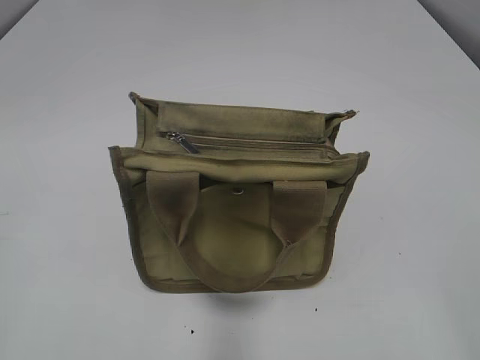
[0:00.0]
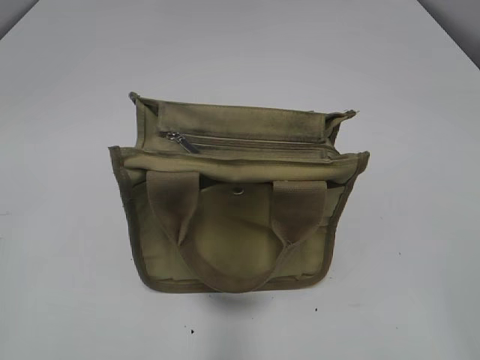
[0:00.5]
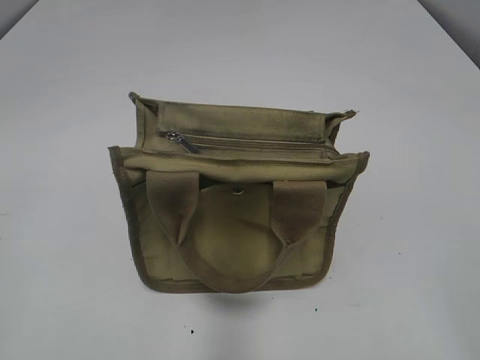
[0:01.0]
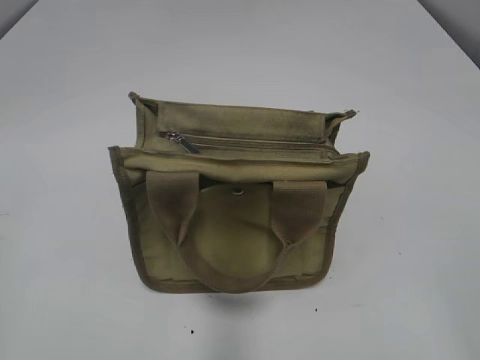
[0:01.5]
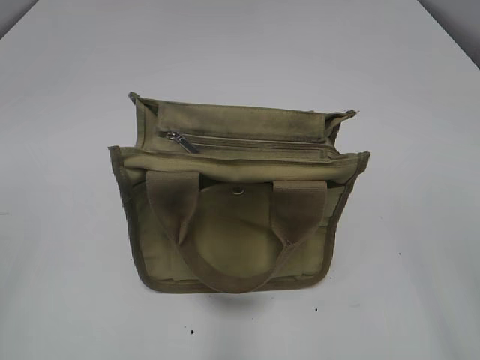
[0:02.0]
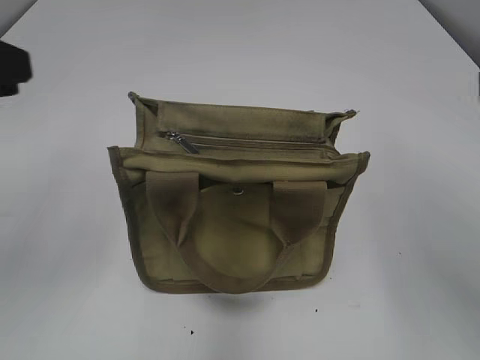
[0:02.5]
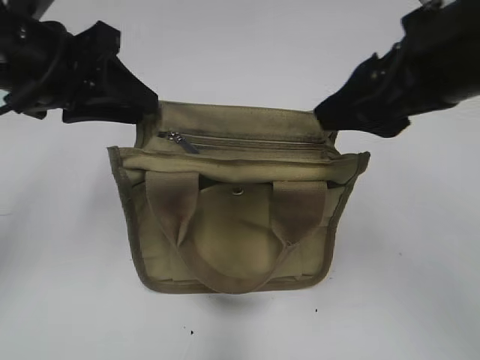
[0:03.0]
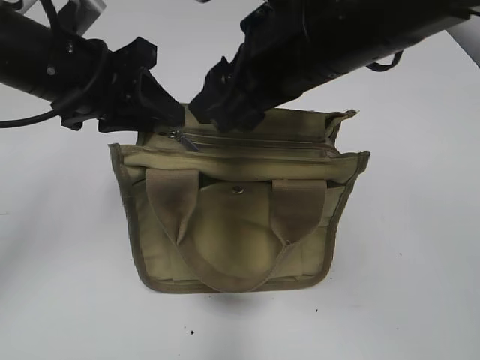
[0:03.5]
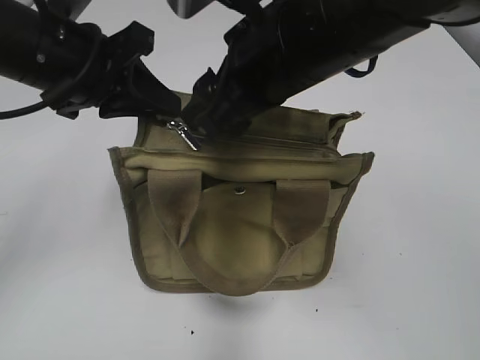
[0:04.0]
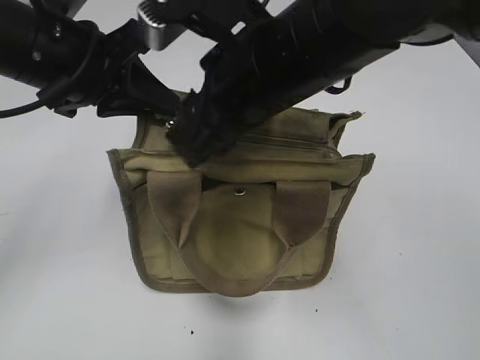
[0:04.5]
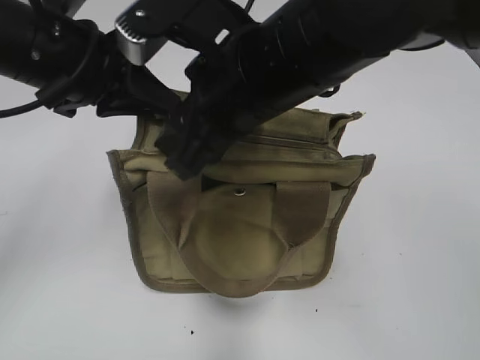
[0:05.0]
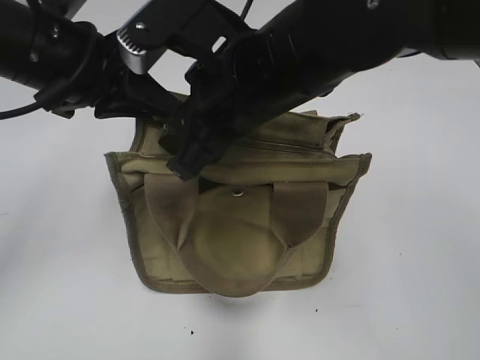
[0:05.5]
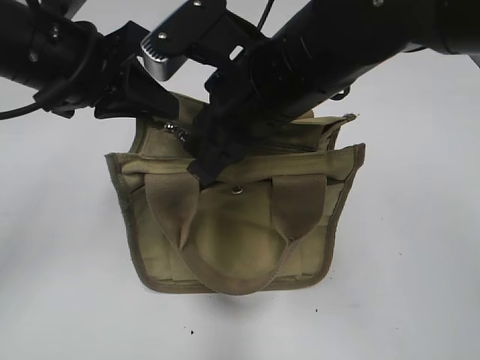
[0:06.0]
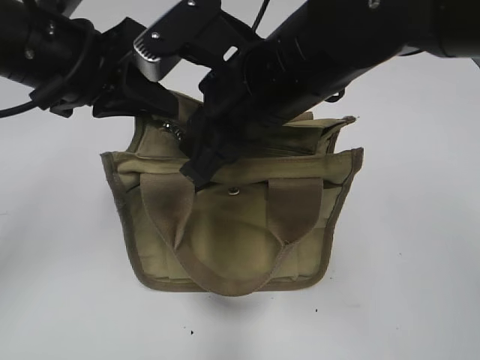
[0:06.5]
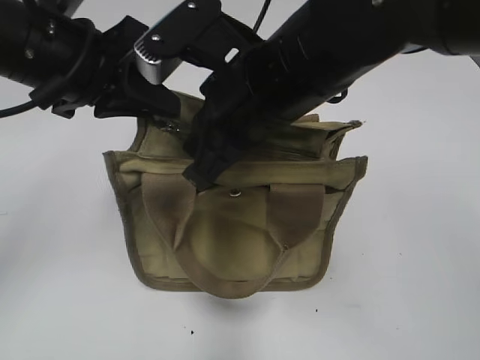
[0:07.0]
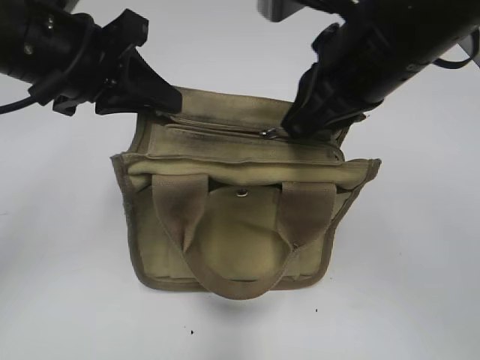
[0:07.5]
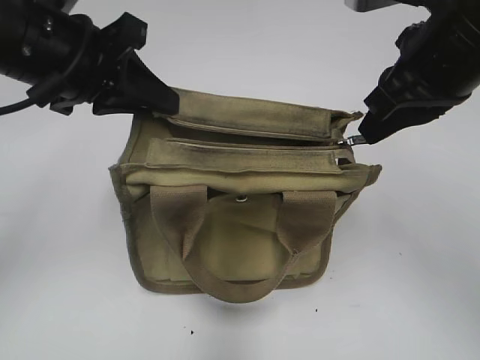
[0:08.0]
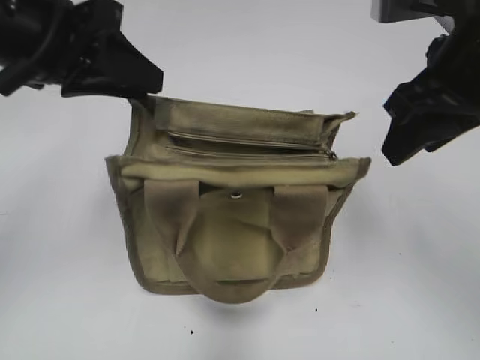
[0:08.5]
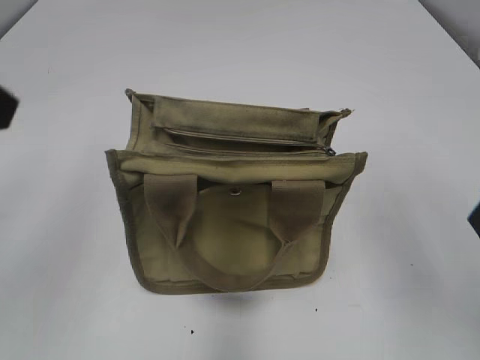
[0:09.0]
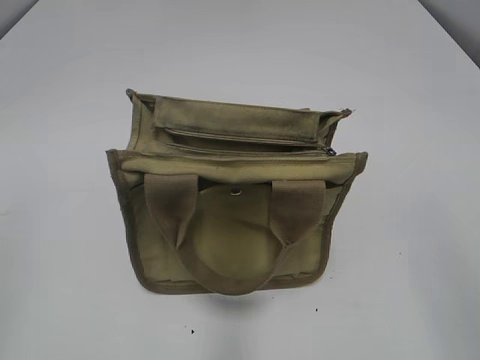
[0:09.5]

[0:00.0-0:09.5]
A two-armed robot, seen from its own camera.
Step, 0.0 to 8.0 s: Pull open the zipper with your right hand.
2.0 to 4.0 s: The right gripper shifts approximately 35 cm forward and to the left. Meanwhile the left gripper heads forward and to the right, covering roughly 30 cm, and closes its fingers.
4.0 to 5.5 s: There are only small adjustments of the grippers.
5.5 to 7.5 s: The right gripper moves to the right, approximately 10 cm, and closes up.
7.5 to 9.5 s: The left gripper heads backward and to the left, covering about 25 cm, and opens. The right gripper is displaced backward and to the right by roughly 25 cm, and opens up.

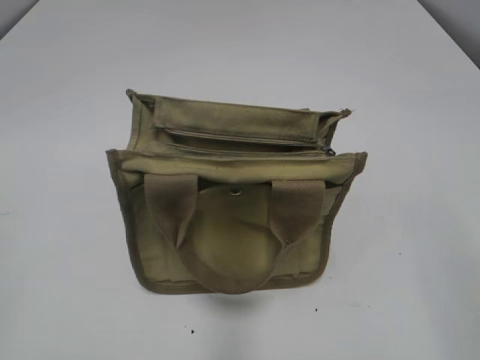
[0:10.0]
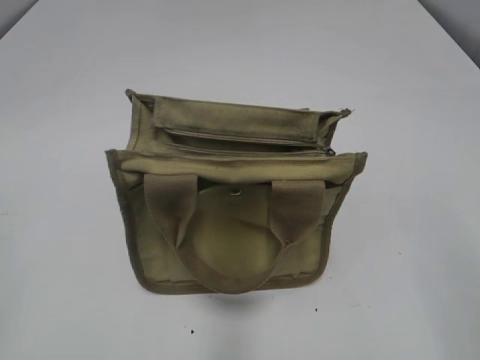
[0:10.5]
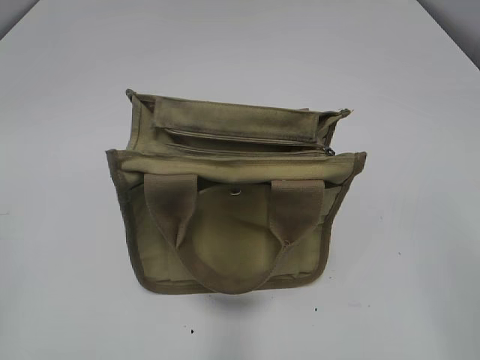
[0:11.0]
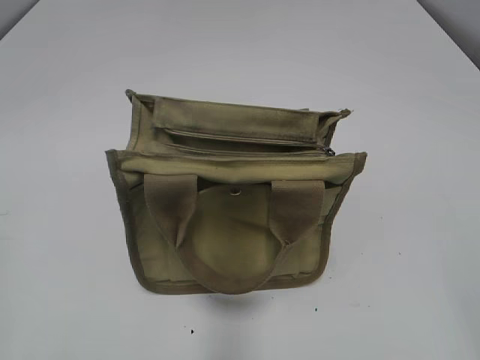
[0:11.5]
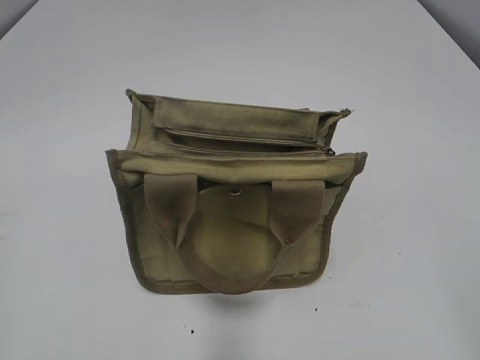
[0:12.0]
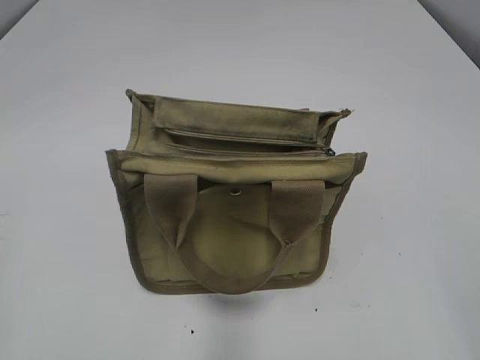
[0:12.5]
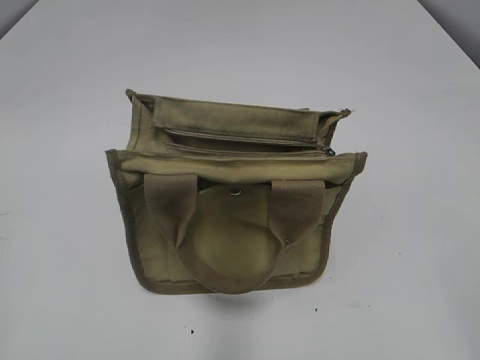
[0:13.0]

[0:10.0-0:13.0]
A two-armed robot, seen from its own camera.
11.5 to 13.0 s: Neither gripper changes place.

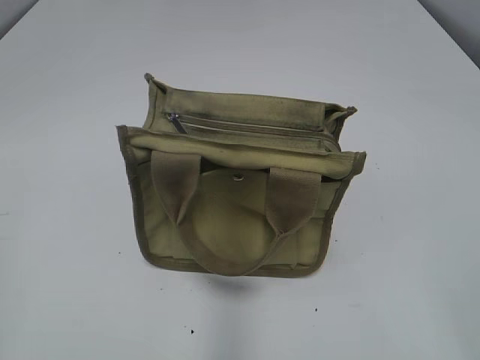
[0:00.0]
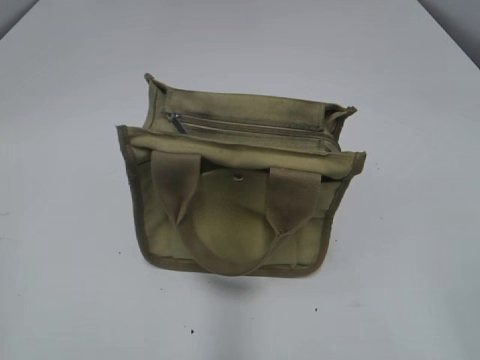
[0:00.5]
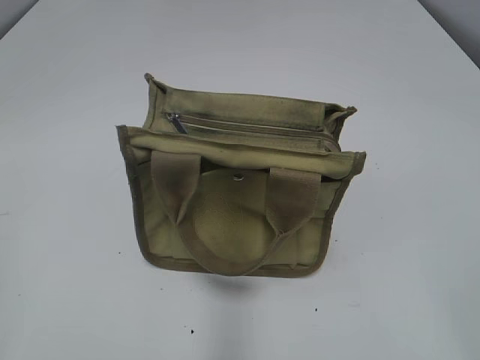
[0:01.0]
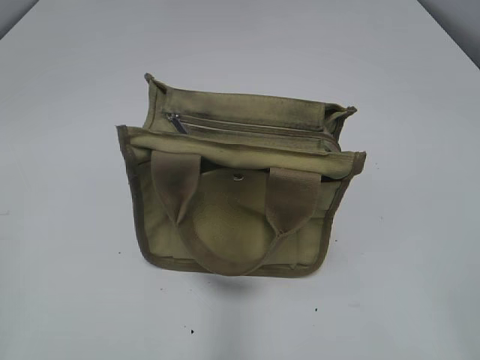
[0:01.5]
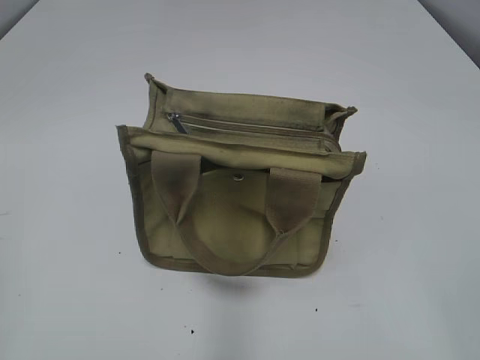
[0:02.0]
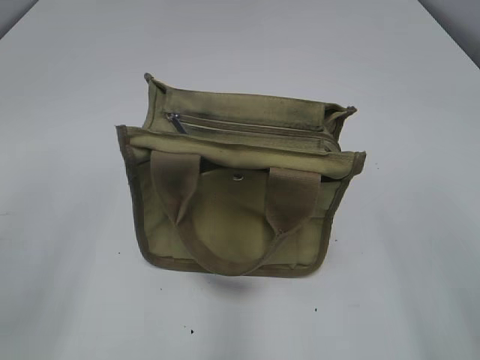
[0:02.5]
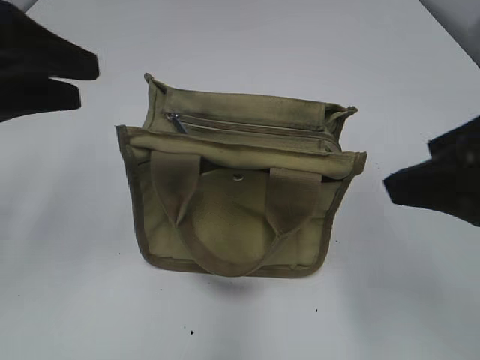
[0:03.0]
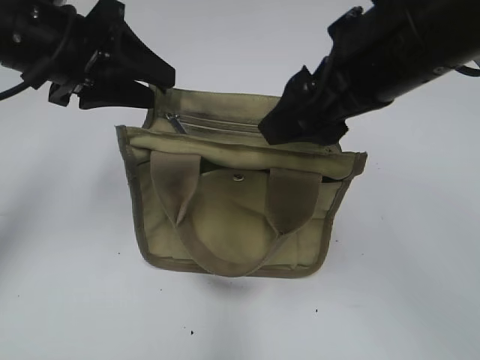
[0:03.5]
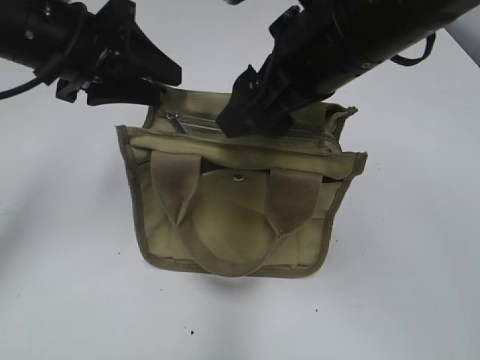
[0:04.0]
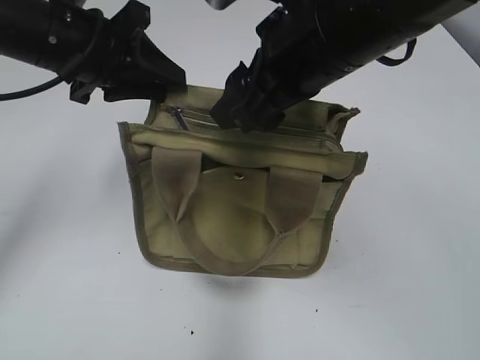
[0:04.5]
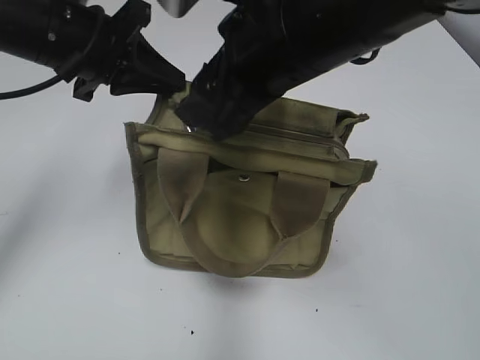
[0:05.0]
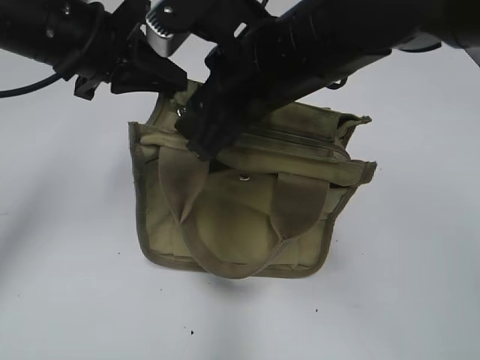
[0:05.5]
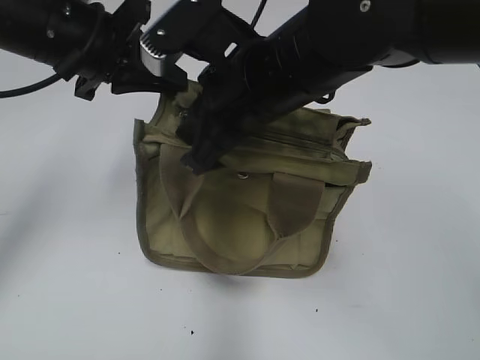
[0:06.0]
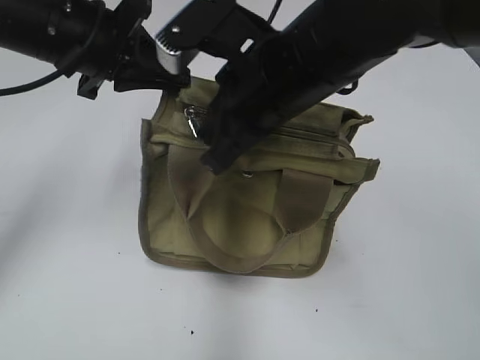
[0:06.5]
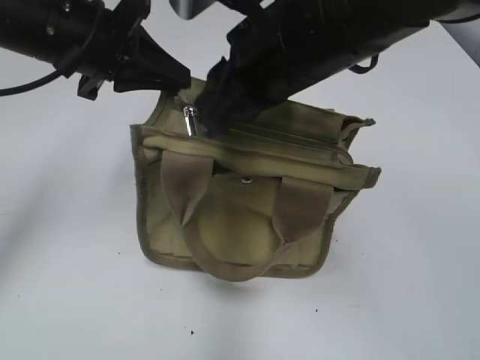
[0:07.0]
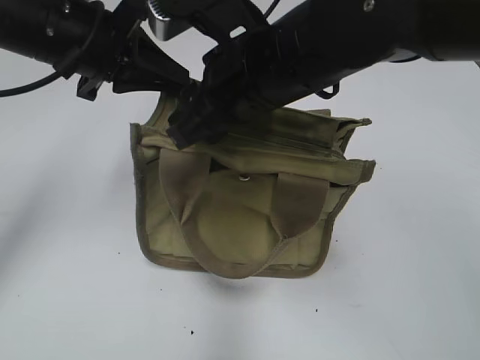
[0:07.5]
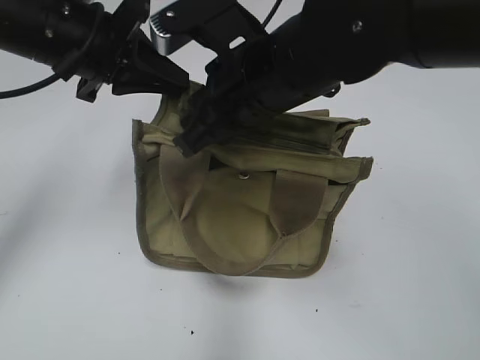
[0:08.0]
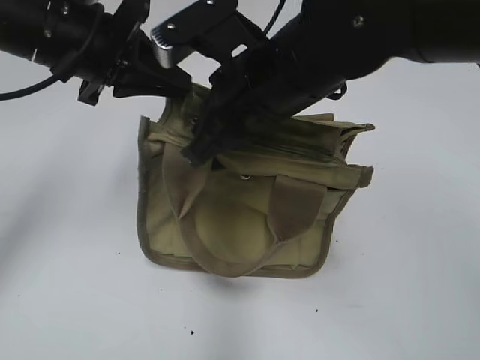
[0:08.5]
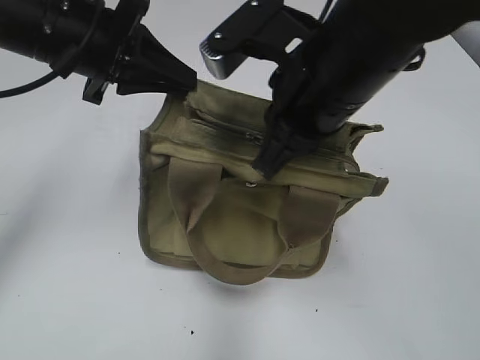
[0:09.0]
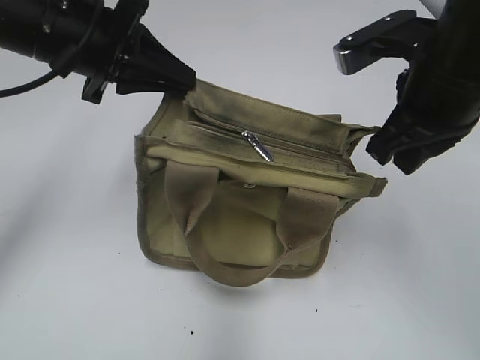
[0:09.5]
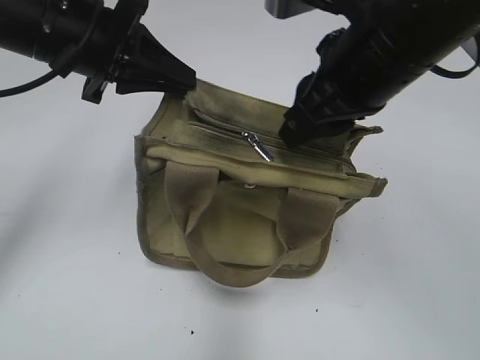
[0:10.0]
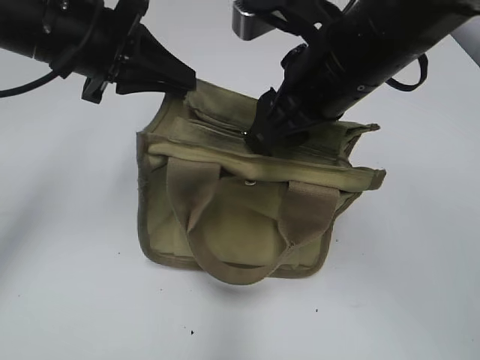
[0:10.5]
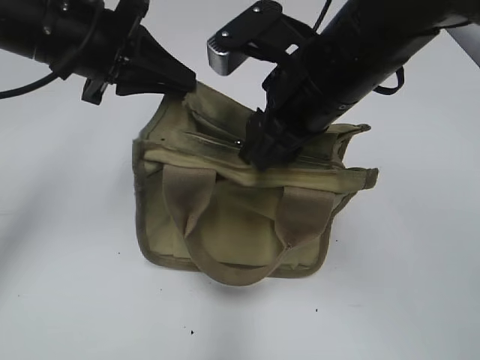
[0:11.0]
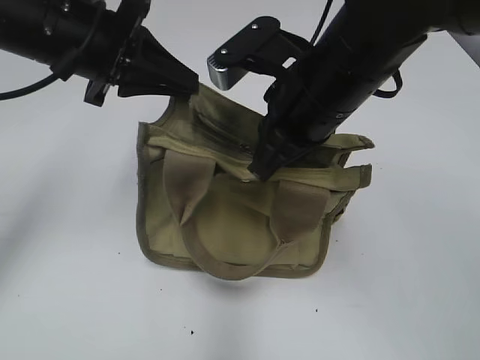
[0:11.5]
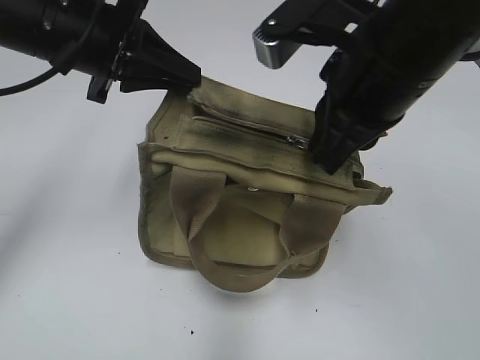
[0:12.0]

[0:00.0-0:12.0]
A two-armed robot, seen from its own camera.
2.0 to 4.0 s: The right gripper travels forward and to the left by some 35 cm. Meanwhile the left gripper travels forward and to the right by approximately 35 cm.
4.0 to 6.0 s: The left gripper closes; the right gripper is displaced downward by about 5 cm, and closes up.
6.0 to 8.0 s: There are only small adjustments of the grippers.
8.0 to 10.0 s: The right gripper heads to the right, covering roughly 10 cm.
10.0 to 12.0 s: The right gripper opens, then closes once more.

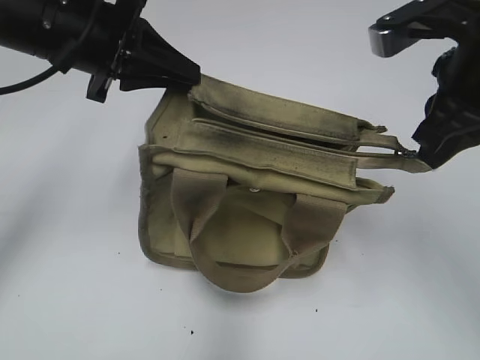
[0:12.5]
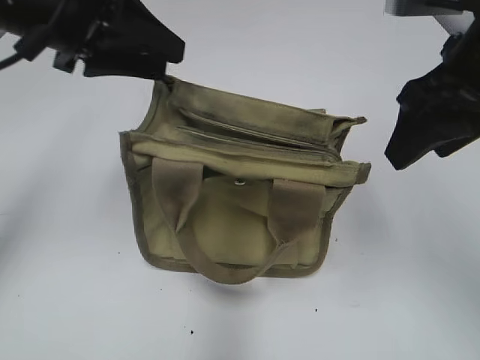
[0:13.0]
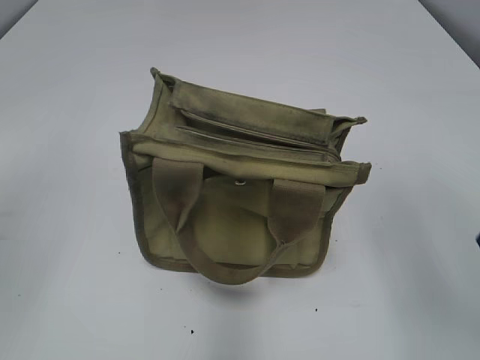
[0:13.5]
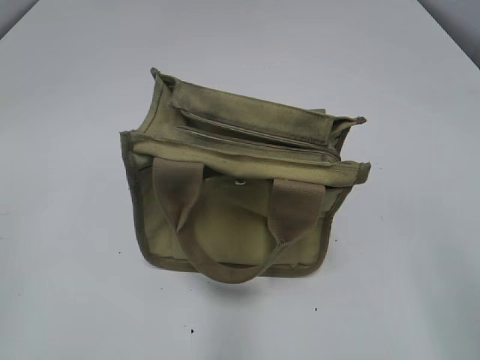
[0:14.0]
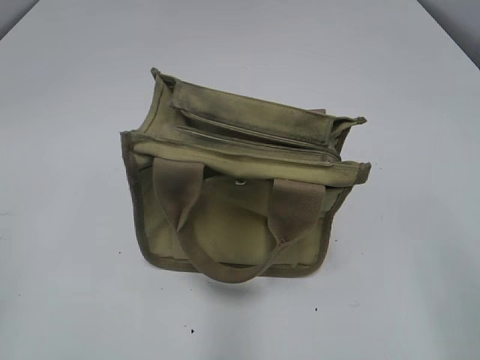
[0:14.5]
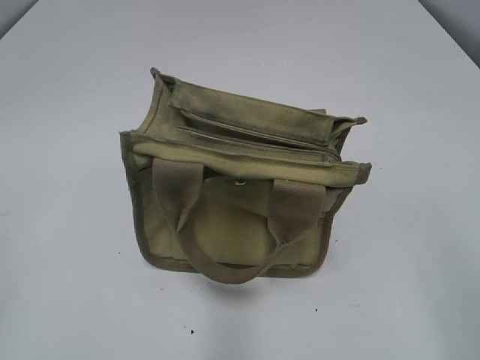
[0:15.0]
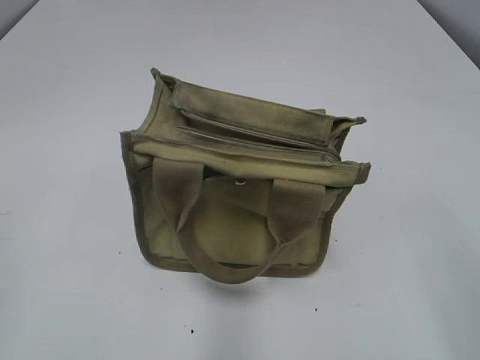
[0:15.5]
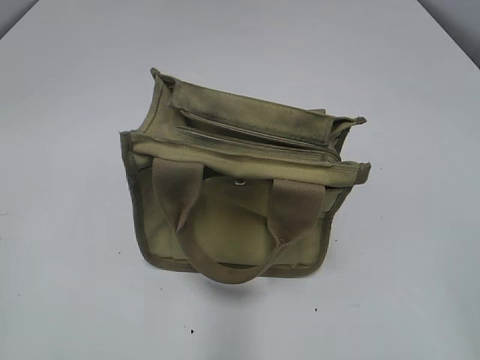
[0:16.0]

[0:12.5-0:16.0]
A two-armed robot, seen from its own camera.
12.5 to 14.5 s: The right gripper travels backward by some 20 cm, and opens. The left gripper moves backward and to the left, approximately 35 cm, and opens.
